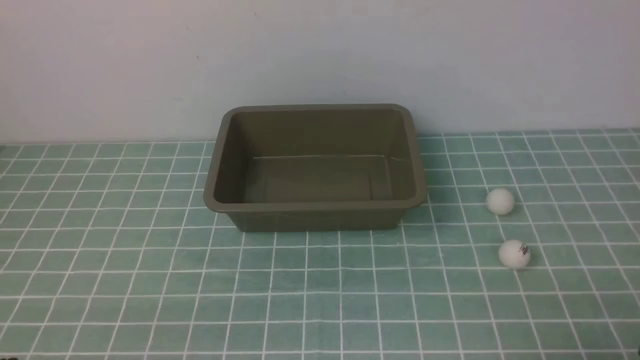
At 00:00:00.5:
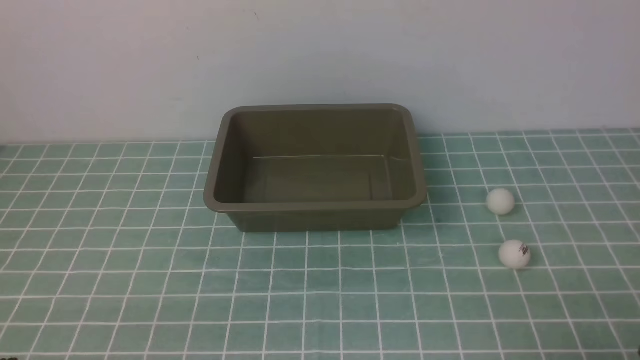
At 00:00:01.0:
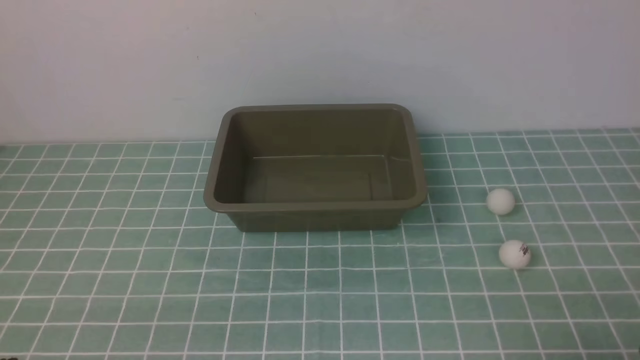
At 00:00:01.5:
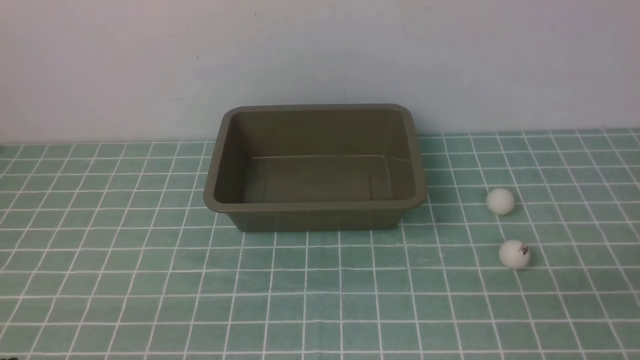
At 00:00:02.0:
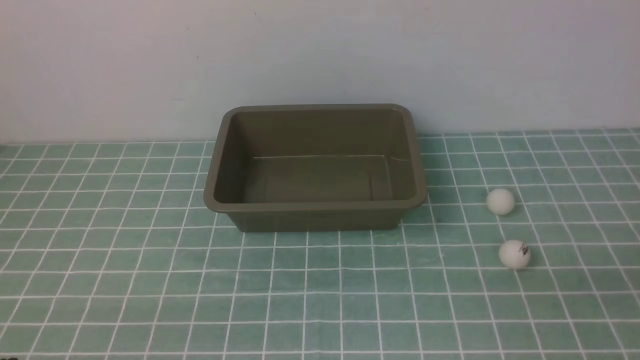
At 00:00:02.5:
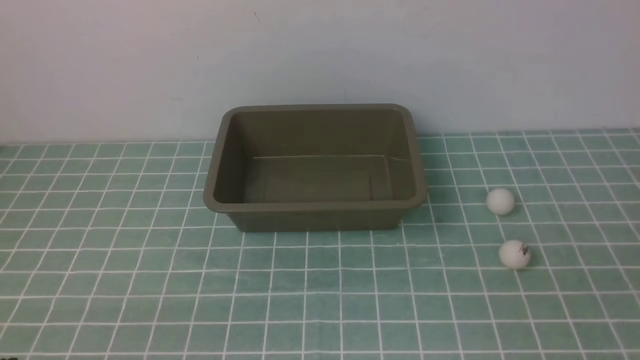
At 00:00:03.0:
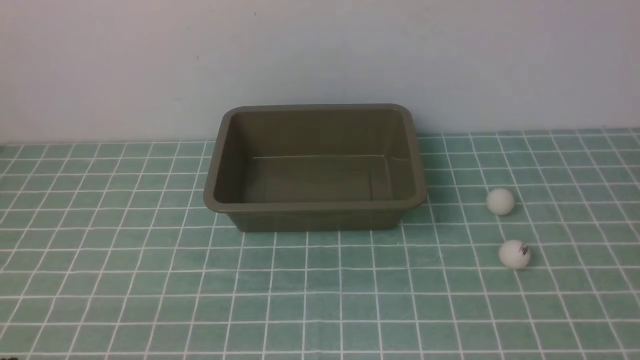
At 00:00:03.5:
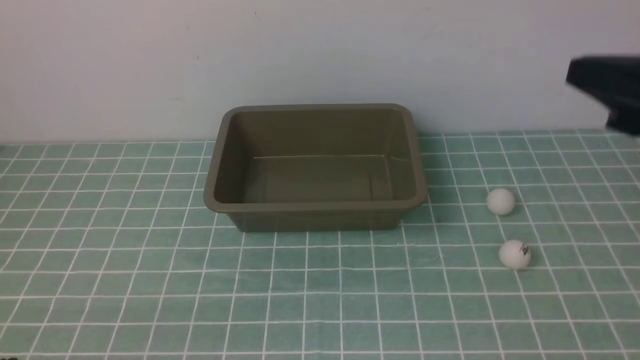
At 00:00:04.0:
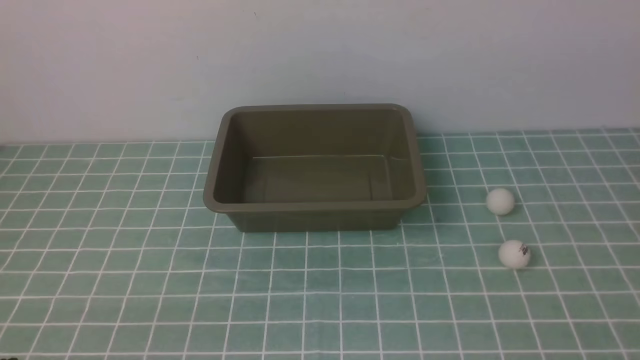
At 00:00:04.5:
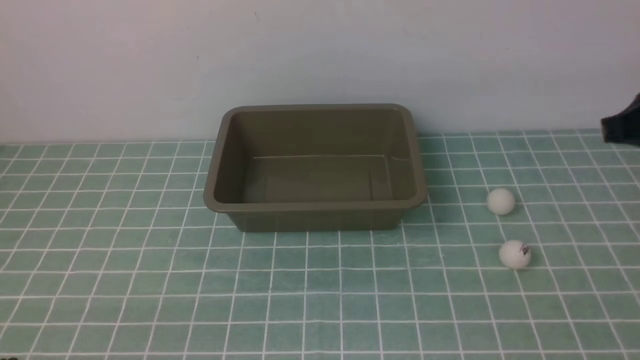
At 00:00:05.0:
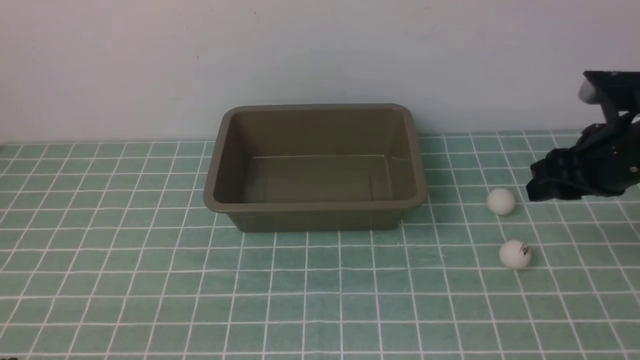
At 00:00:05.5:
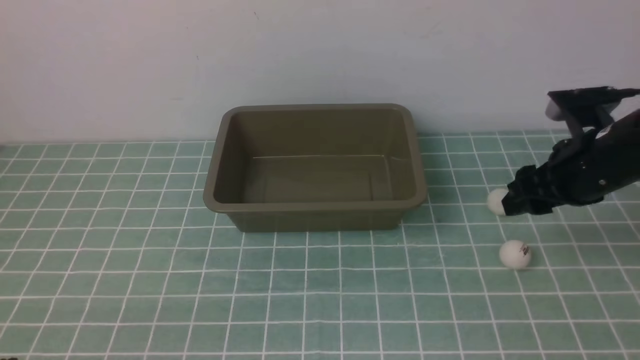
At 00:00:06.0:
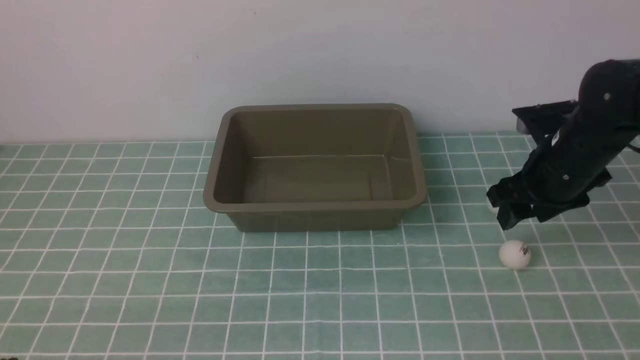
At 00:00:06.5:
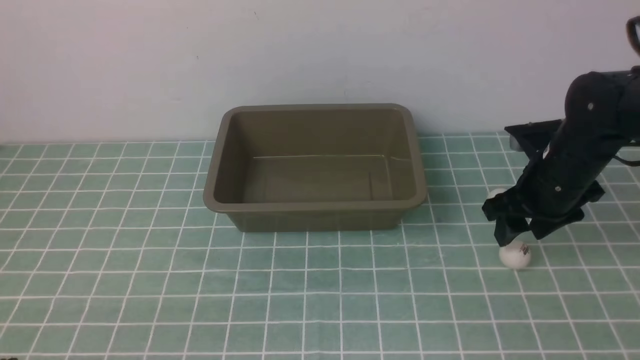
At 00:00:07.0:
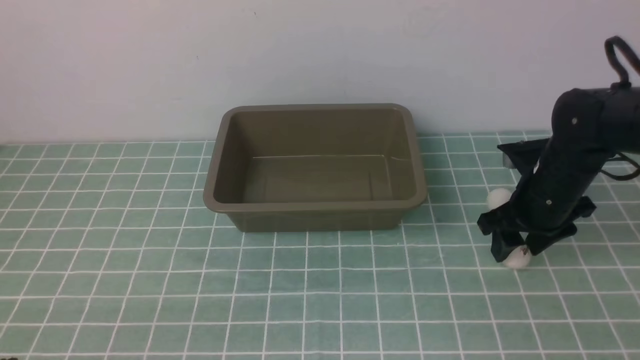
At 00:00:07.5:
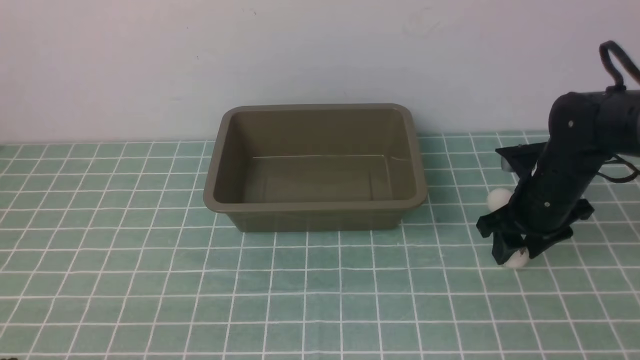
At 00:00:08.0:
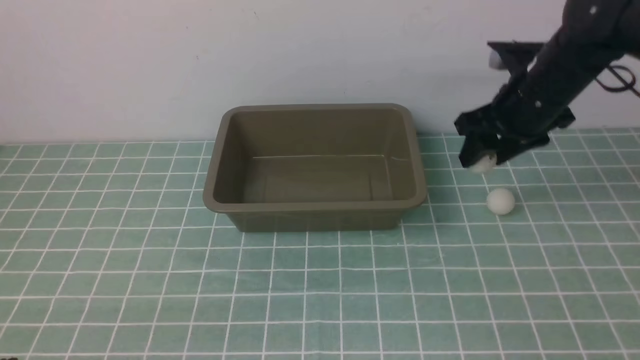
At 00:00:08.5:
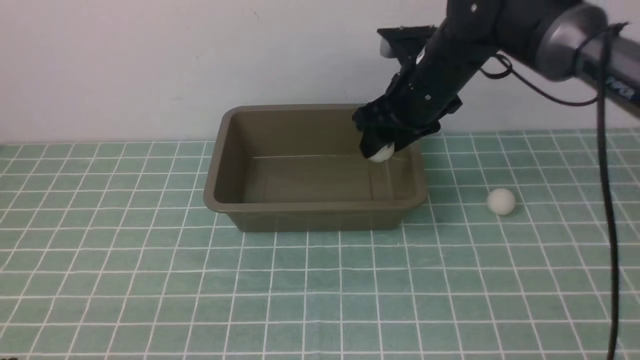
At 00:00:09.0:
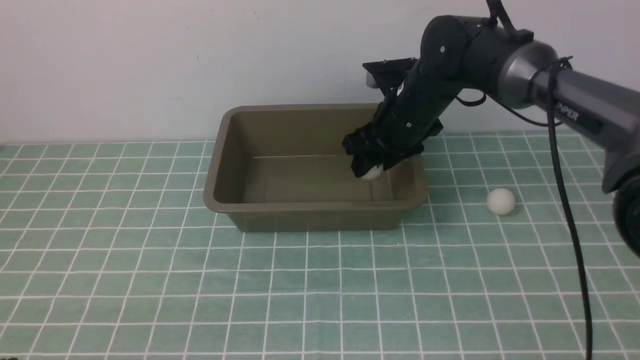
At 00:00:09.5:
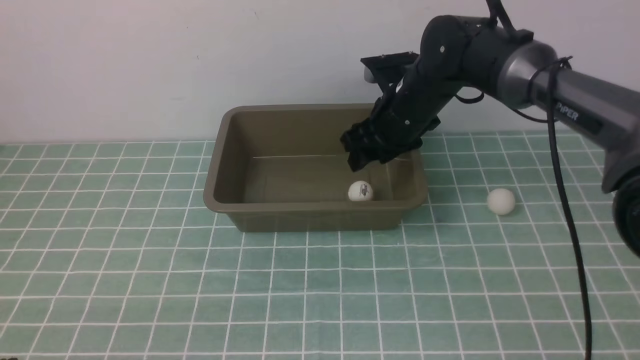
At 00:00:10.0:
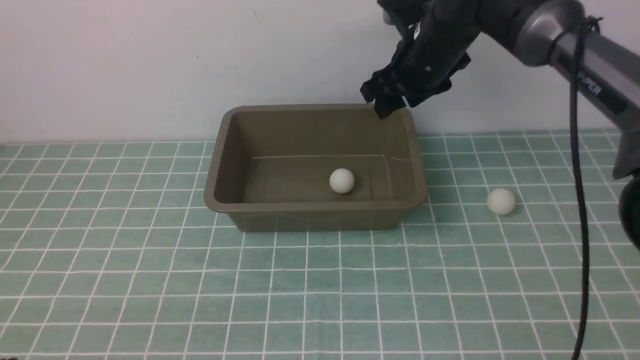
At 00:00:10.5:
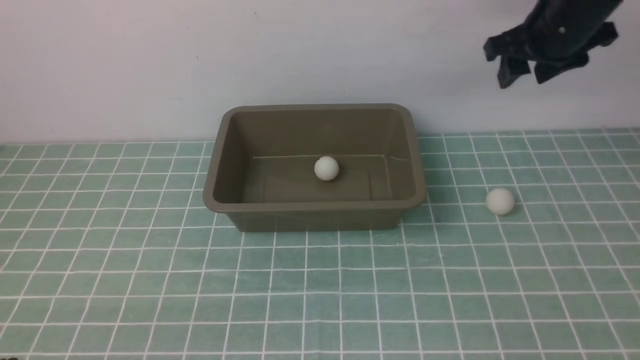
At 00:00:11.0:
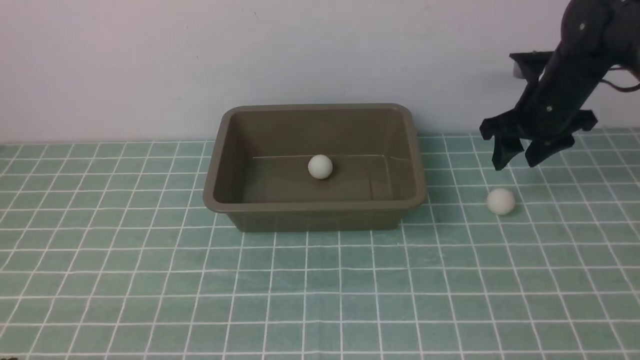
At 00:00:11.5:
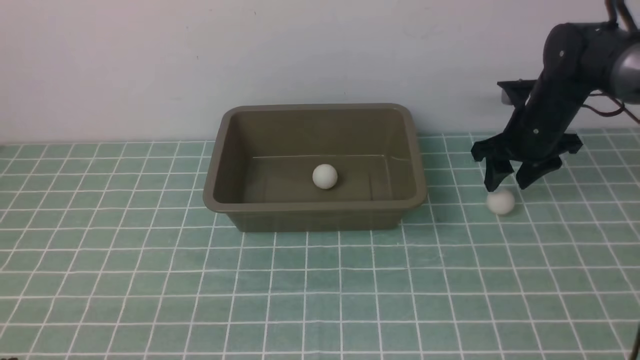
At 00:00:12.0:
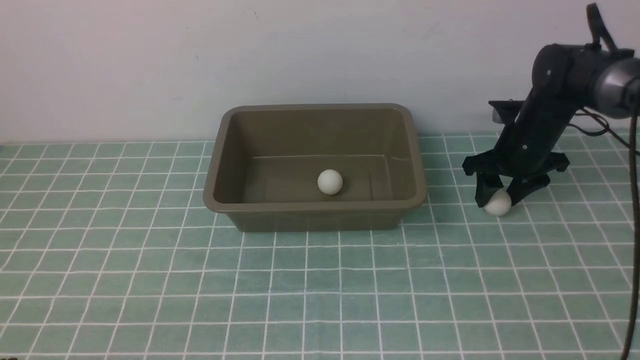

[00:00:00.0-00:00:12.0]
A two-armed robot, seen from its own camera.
Step, 00:00:00.0 to 00:00:07.5: use the right arm to clamp the table tennis ball closest to it.
Step, 00:00:08.0 to 00:00:09.5: use the right arm to put the table tennis ball into the box.
00:00:04.0 to 00:00:06.0: The right gripper moves downward, forward and to the left, approximately 30 cm, and opens.
00:00:06.0 to 00:00:08.0: The right gripper is displaced upward by approximately 5 cm.
00:00:08.0 to 00:00:10.0: The right gripper travels to the left and forward by roughly 10 cm.
00:00:10.0 to 00:00:12.0: The right gripper moves downward and to the right, roughly 20 cm.

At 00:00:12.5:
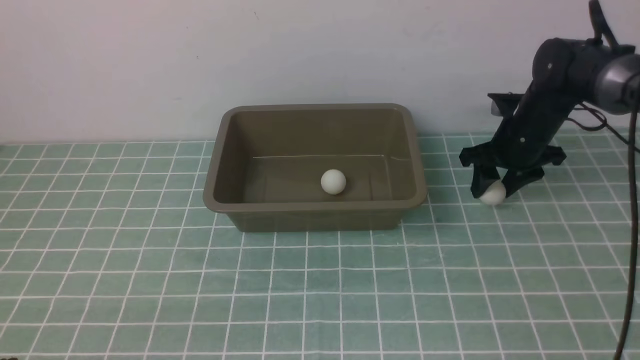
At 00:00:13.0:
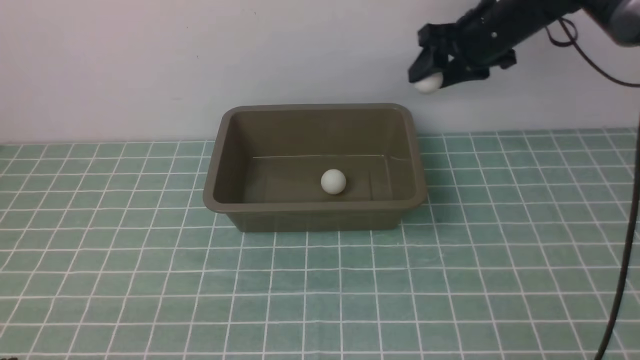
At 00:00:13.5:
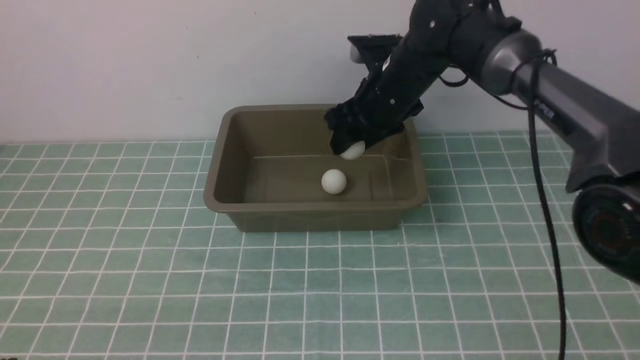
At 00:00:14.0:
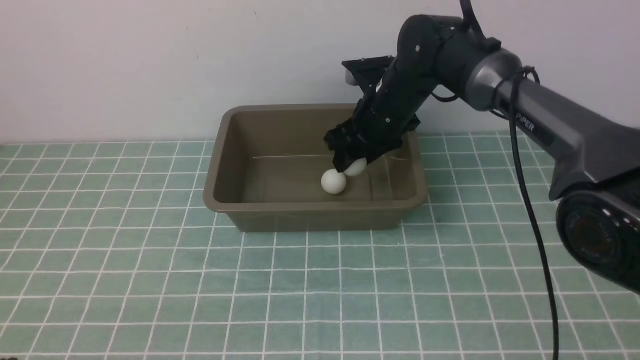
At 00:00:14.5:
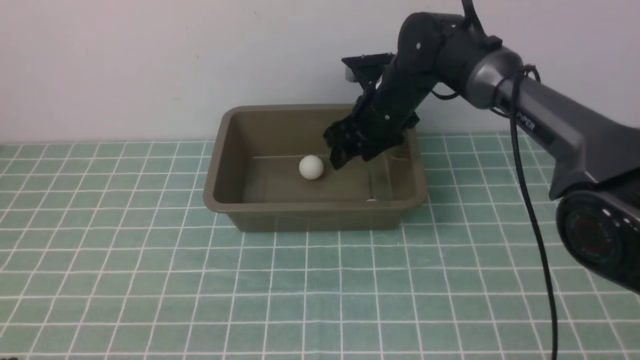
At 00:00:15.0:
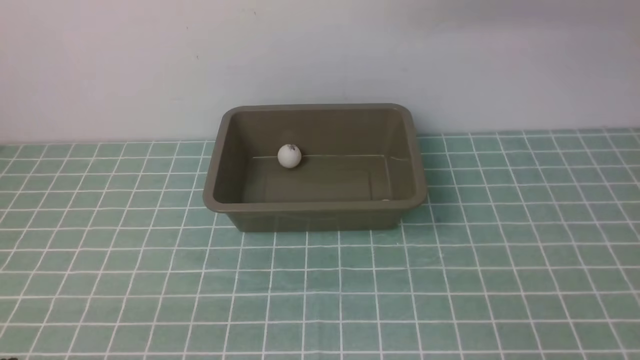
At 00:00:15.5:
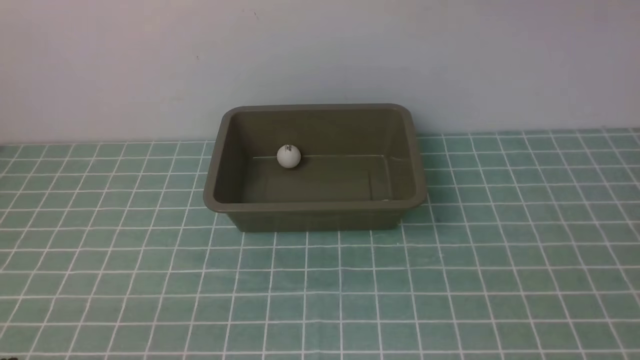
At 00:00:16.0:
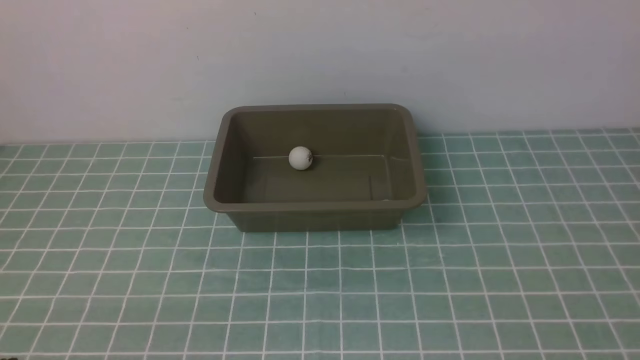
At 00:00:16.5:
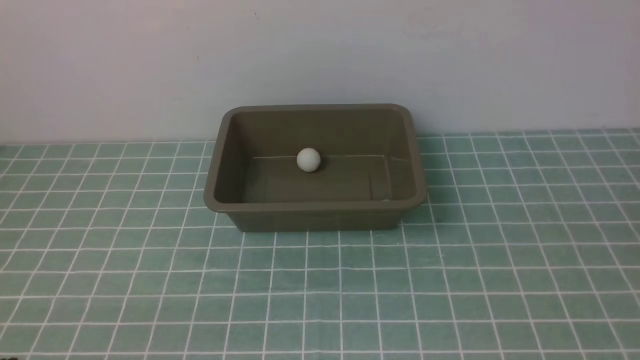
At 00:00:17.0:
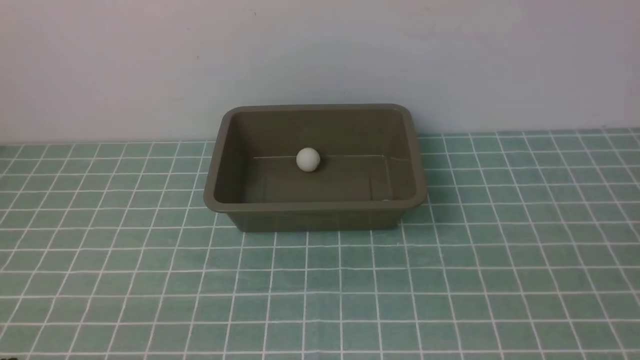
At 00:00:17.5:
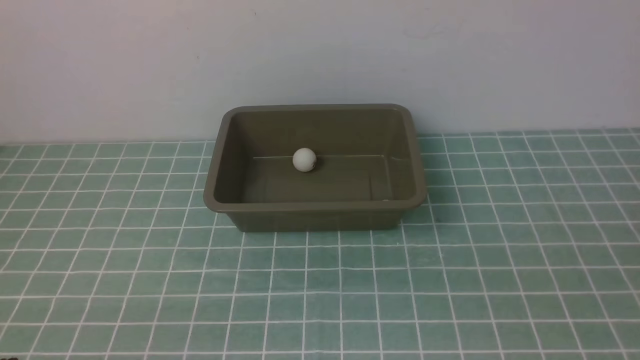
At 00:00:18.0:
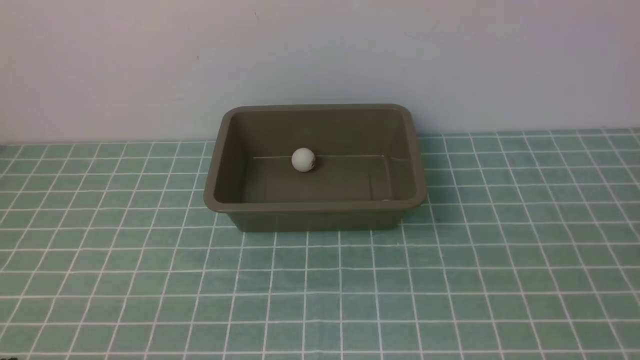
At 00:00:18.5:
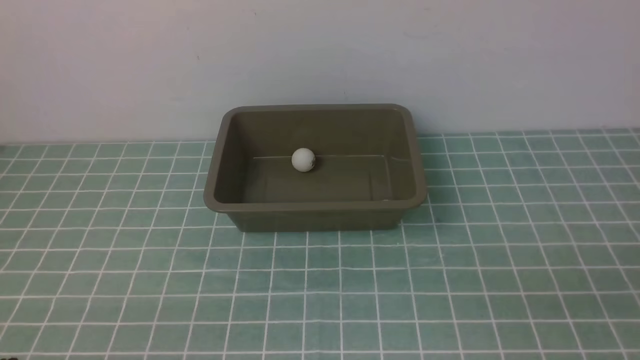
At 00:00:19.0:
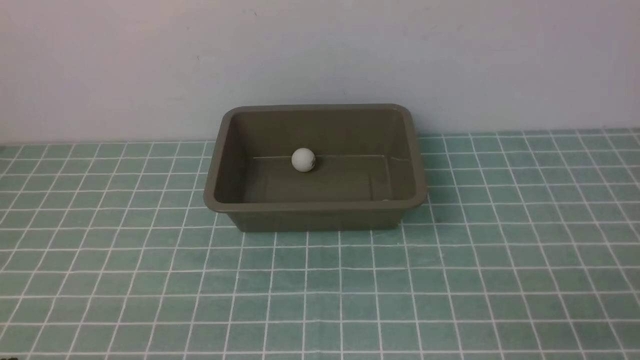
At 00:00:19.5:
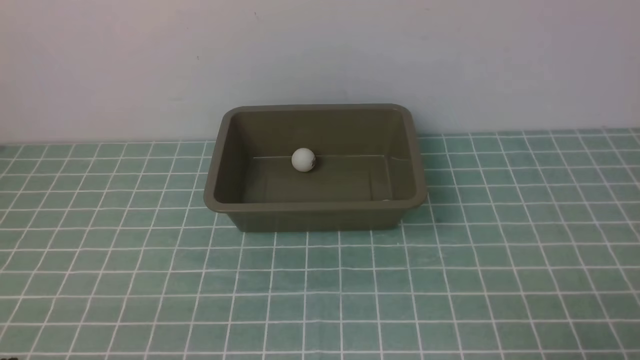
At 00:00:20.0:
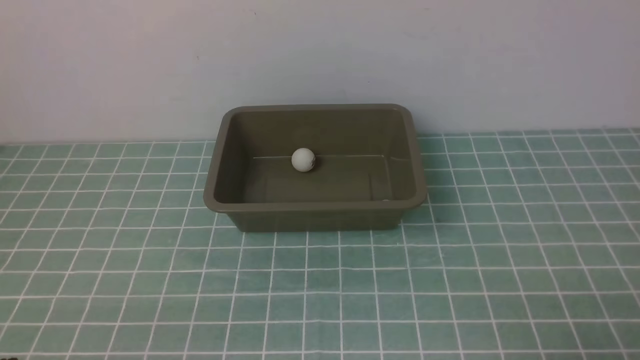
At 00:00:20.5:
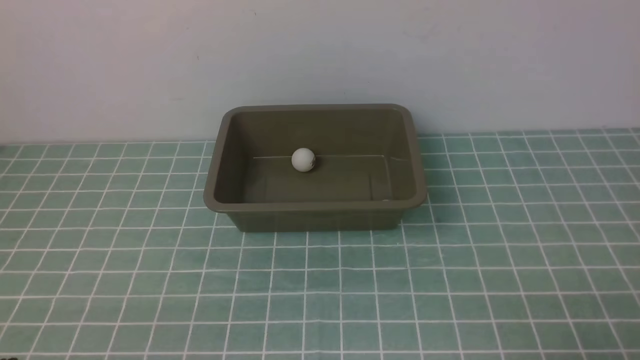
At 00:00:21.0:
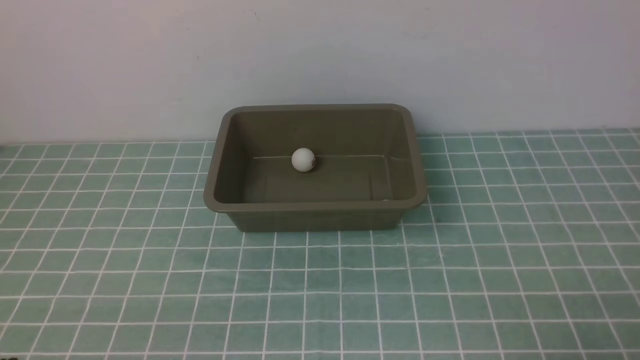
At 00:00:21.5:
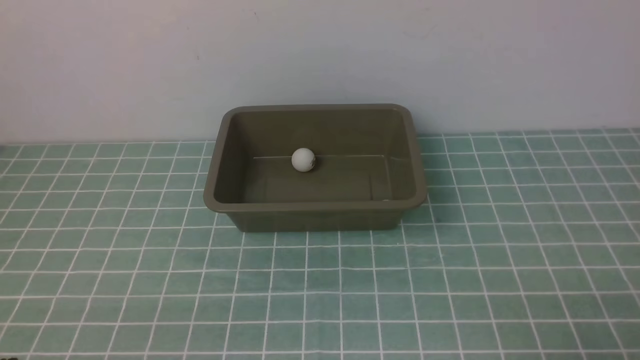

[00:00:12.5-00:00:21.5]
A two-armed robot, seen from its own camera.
Step, 00:00:13.0 to 00:00:14.0: use the right arm to put the table tennis ball into the box.
00:00:12.5 to 00:00:14.5: The right gripper is displaced to the left by about 15 cm.
00:00:14.5 to 00:00:17.0: The right gripper shifts approximately 50 cm backward, and closes its fingers.
00:00:19.5 to 00:00:21.5: Both grippers stay put.
